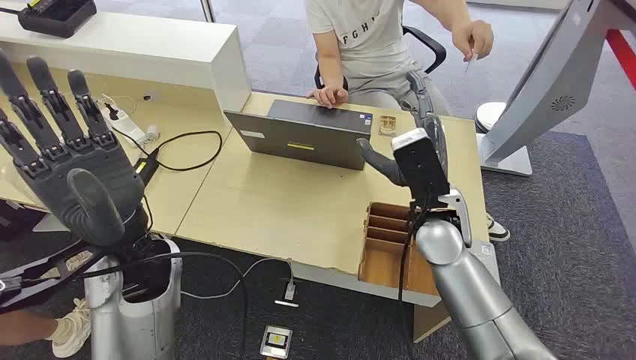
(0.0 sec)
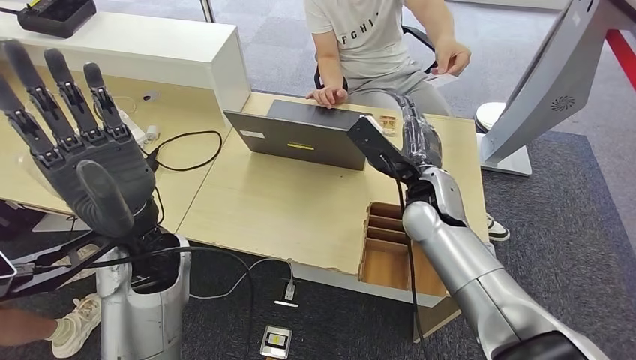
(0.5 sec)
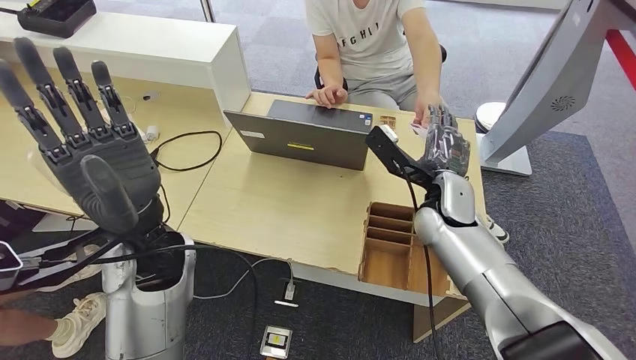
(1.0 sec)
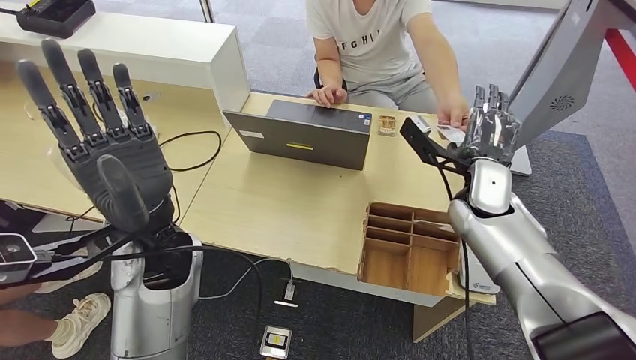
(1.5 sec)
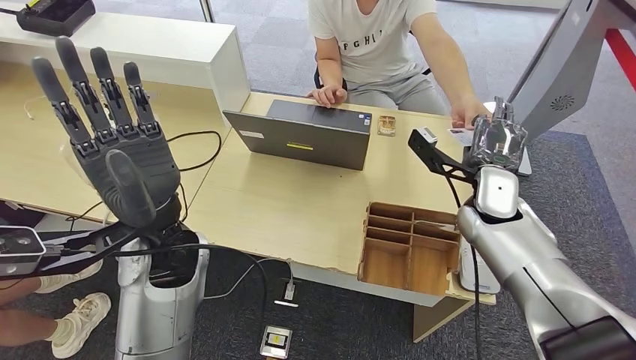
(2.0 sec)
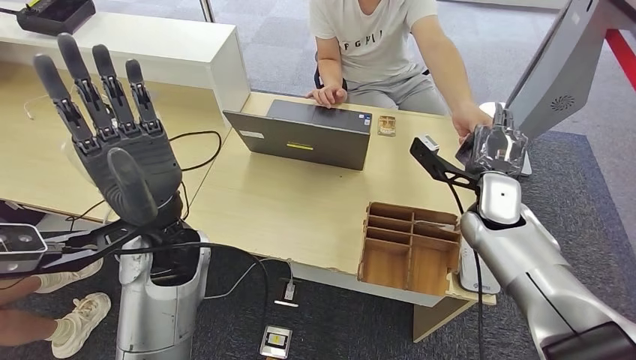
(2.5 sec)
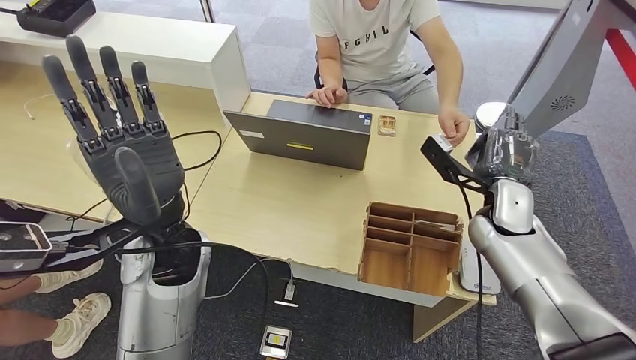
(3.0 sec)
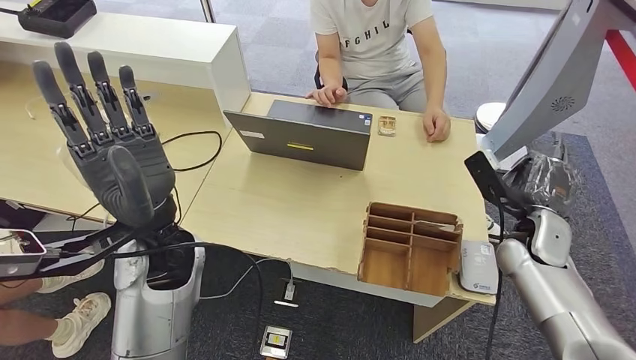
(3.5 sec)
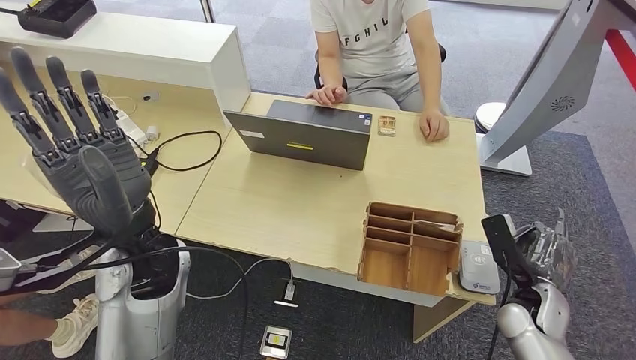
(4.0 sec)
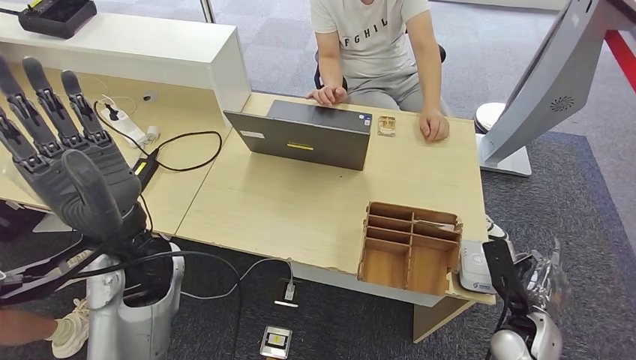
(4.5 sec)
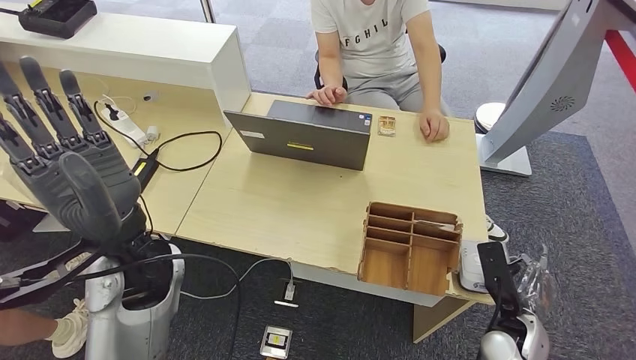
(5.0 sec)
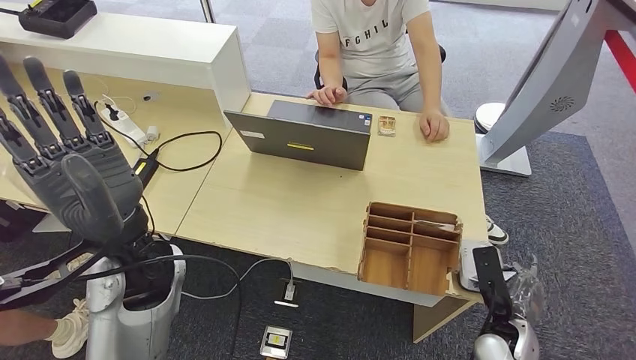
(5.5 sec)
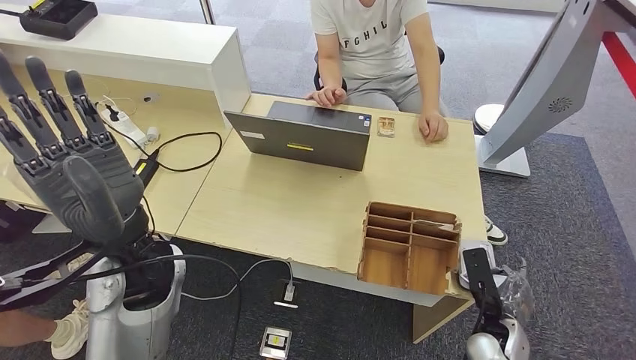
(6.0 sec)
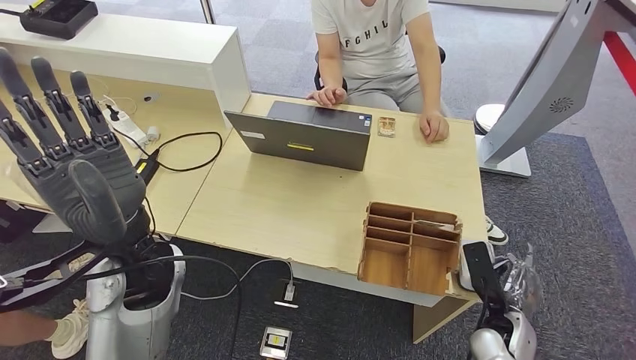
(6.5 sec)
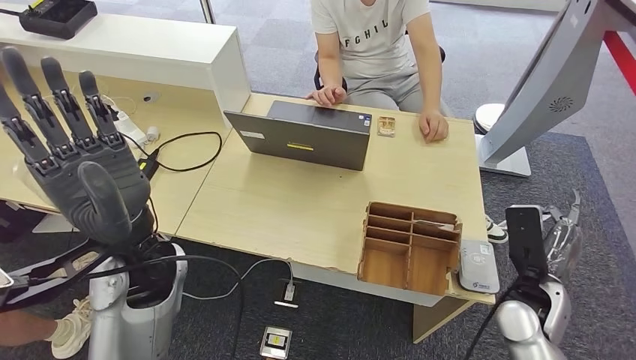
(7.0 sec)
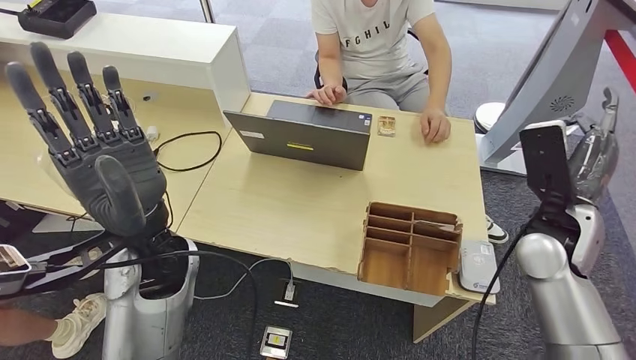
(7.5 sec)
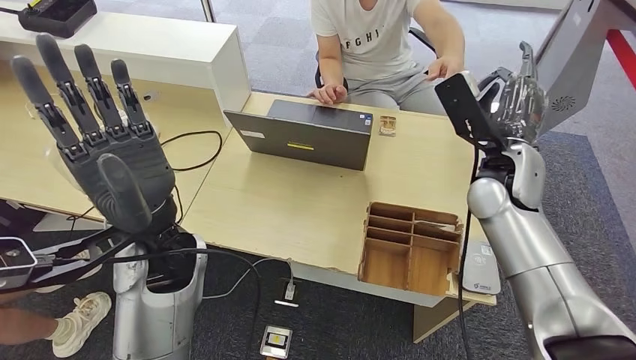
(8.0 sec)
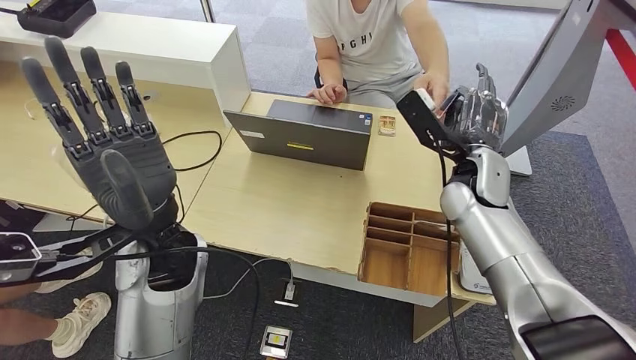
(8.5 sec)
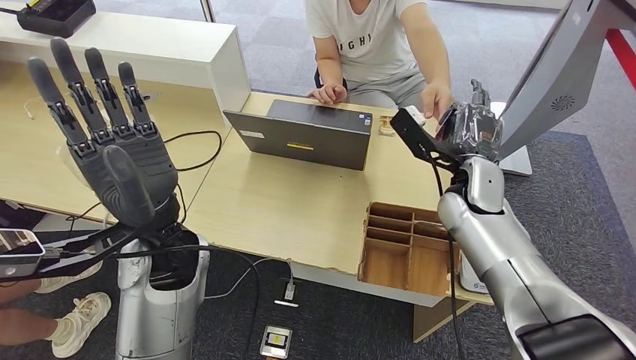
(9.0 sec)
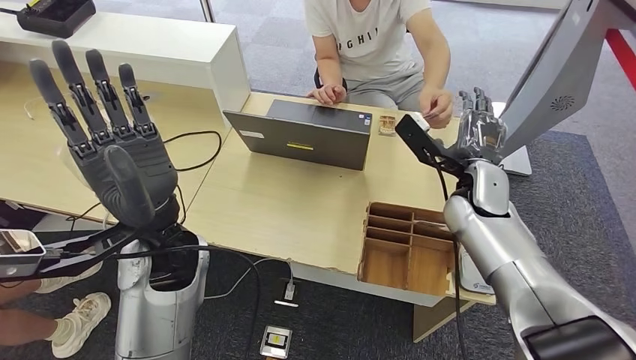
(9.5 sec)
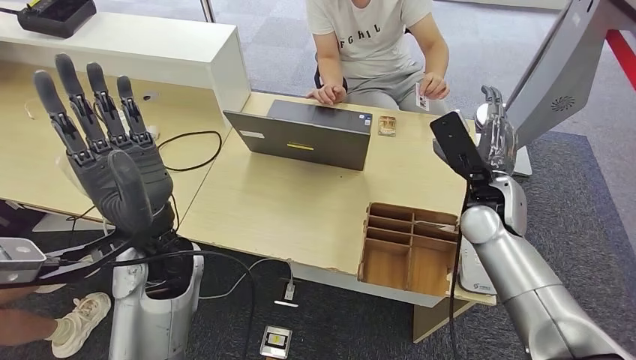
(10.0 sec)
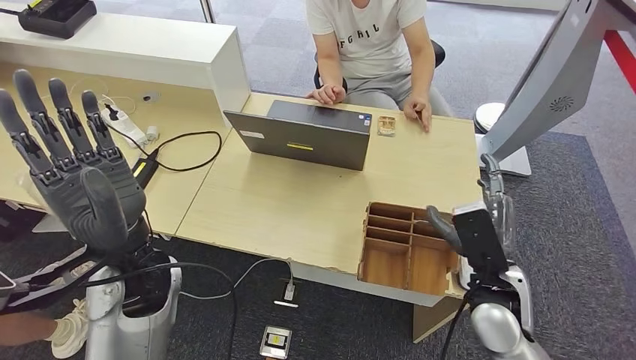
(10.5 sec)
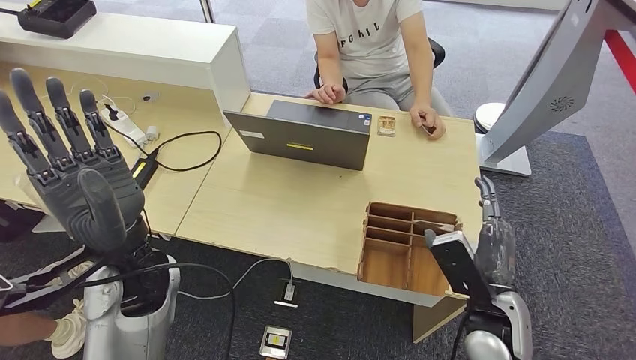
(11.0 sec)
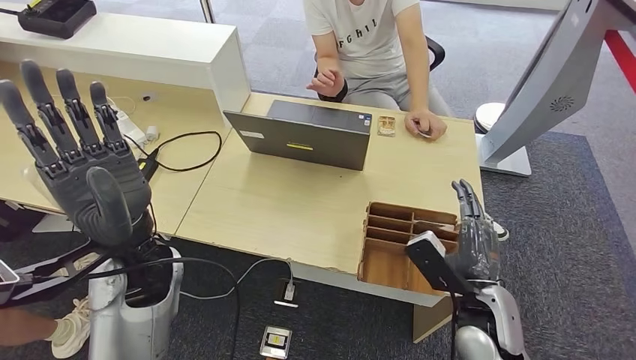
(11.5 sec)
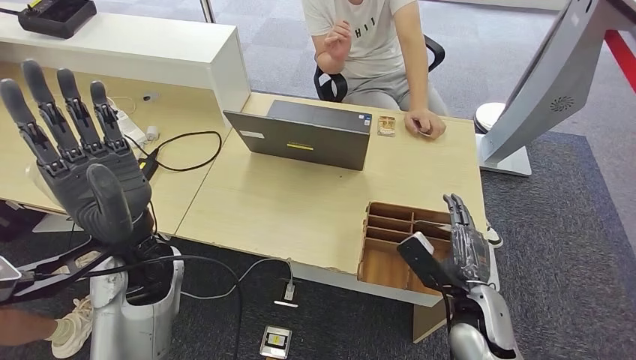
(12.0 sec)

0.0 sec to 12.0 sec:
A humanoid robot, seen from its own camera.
Step, 0.0 sec to 3.0 sec: Take the ID card from the person's hand.
Step, 3.5 sec to 7.0 sec: Place the ID card on the card reader.
Step, 7.5 sec to 10.0 sec: Hand the ID card to the person.
4.0 sec to 6.0 sec: The right hand travels downward and backward by roughly 10 cm.
8.0 sec to 10.0 sec: The right hand is displaced downward by some 5 cm.

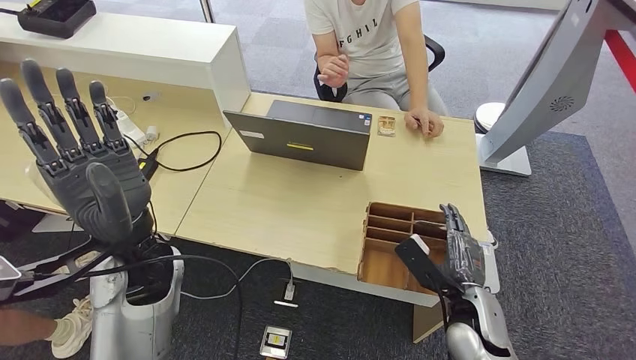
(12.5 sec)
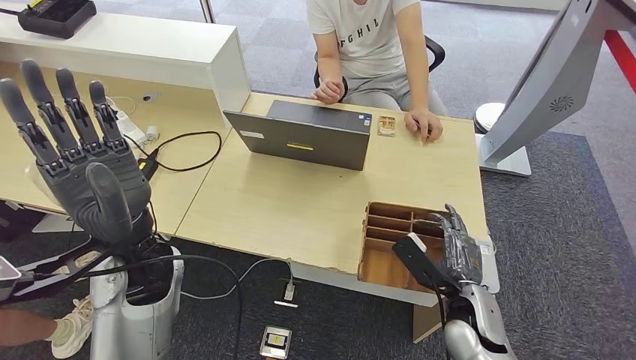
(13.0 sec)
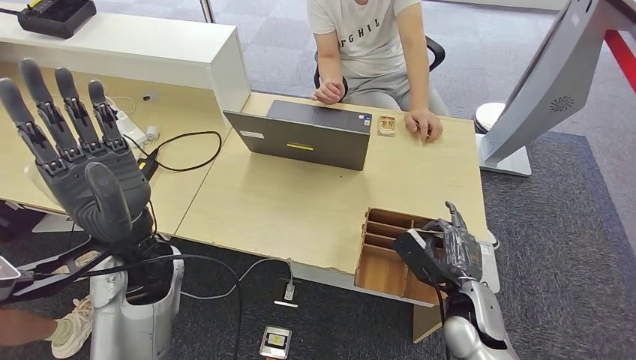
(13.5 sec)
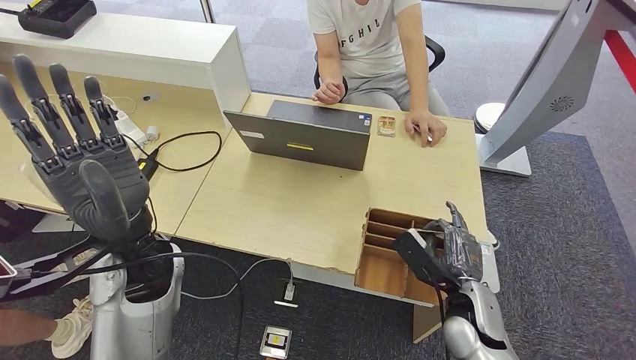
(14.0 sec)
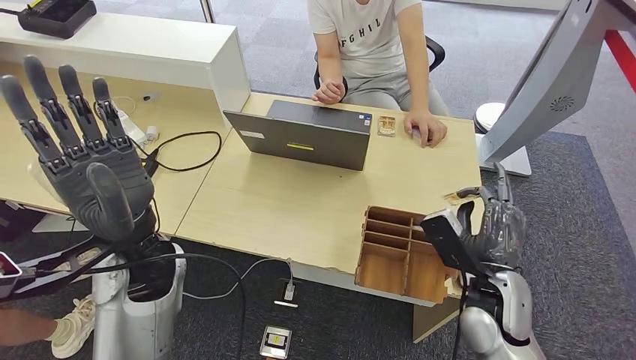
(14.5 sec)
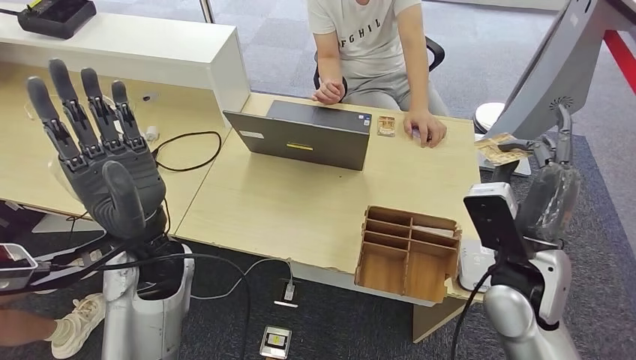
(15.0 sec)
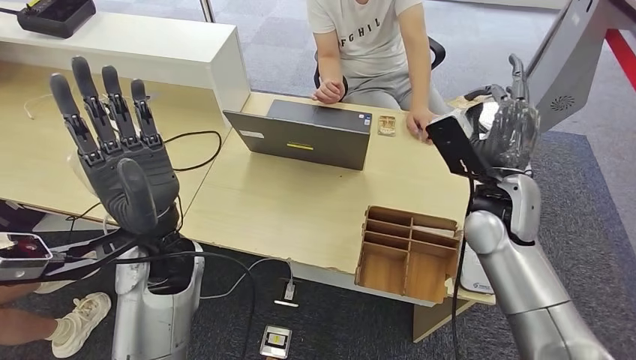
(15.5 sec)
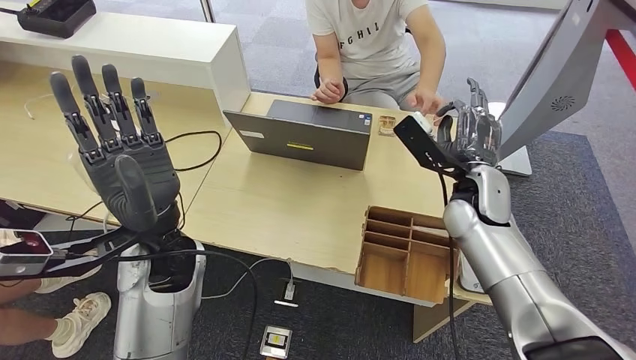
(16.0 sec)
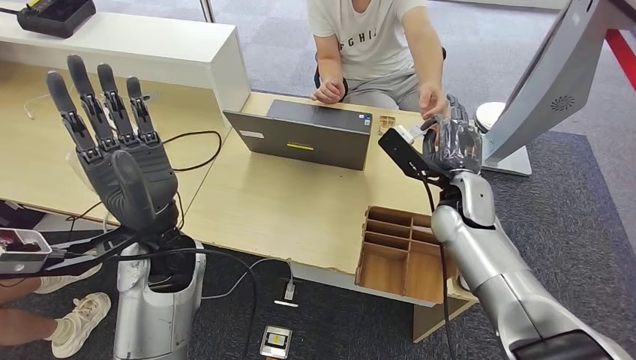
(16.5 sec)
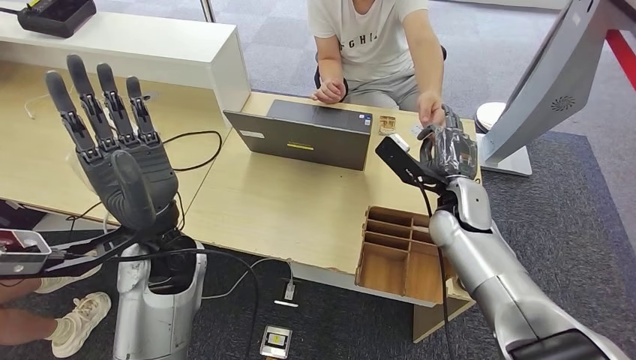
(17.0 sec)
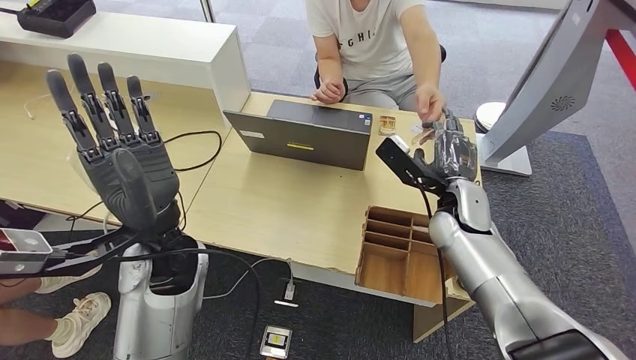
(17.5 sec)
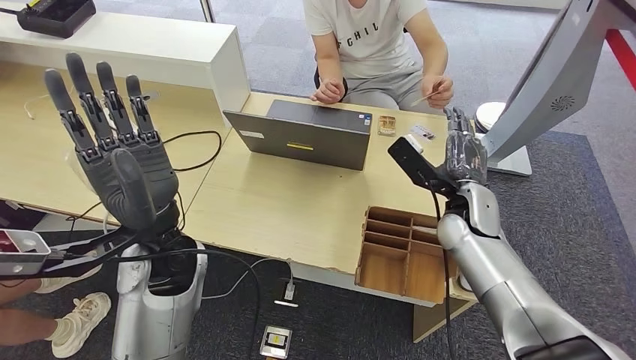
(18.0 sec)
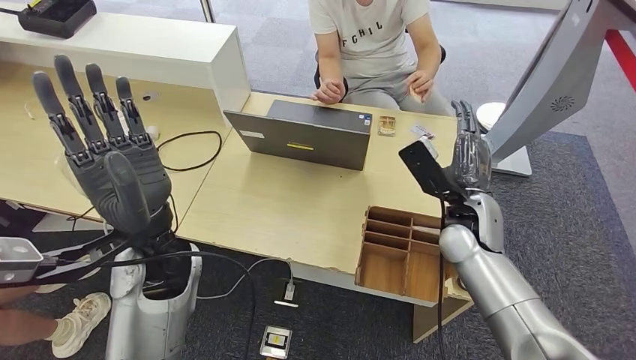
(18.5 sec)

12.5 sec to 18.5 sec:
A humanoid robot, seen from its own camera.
Step, 13.0 sec to 15.0 sec: Pick up the room key from the key card box.
Step, 15.5 sec to 18.0 sec: Hand the room key to the person.
12.5 sec to 14.5 sec: The right hand travels upward by about 5 cm.
16.5 sec to 18.5 sec: There are only small adjustments of the hands.
